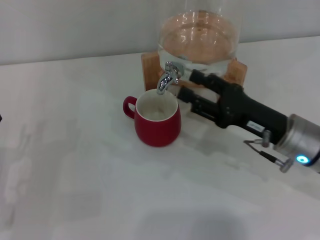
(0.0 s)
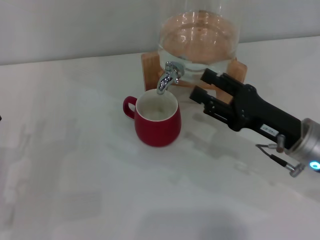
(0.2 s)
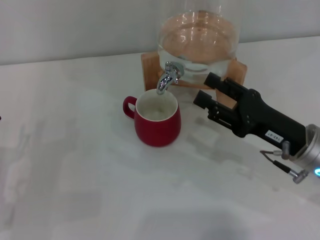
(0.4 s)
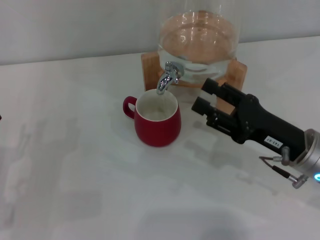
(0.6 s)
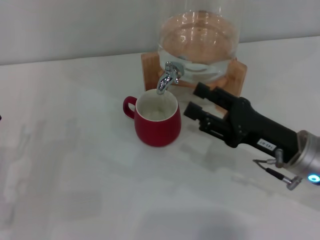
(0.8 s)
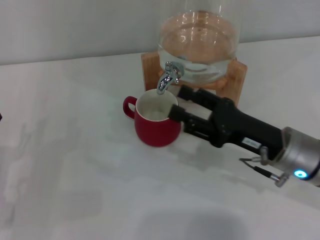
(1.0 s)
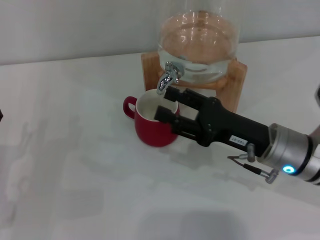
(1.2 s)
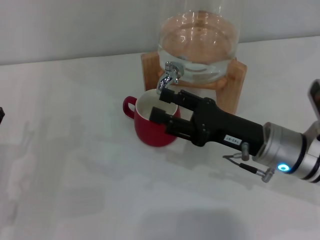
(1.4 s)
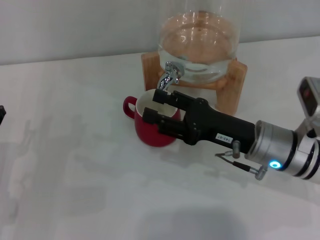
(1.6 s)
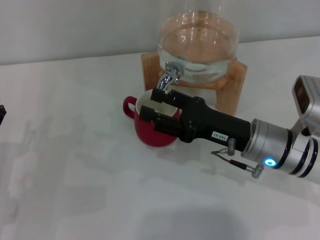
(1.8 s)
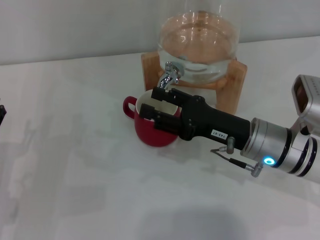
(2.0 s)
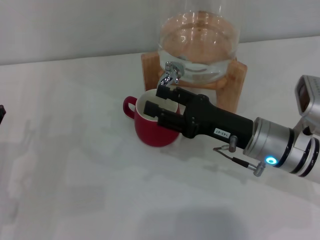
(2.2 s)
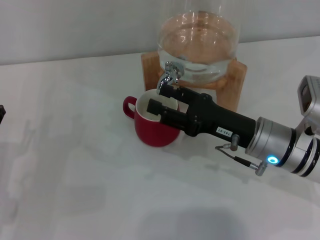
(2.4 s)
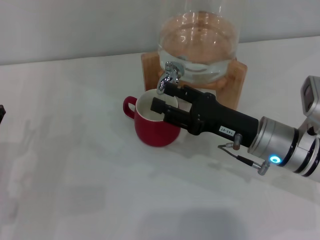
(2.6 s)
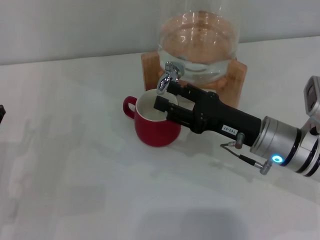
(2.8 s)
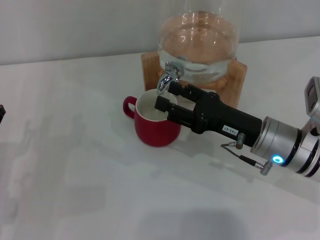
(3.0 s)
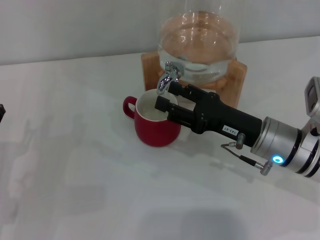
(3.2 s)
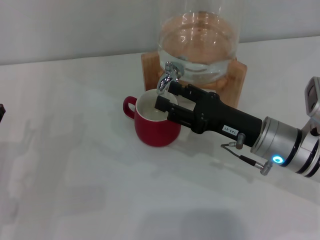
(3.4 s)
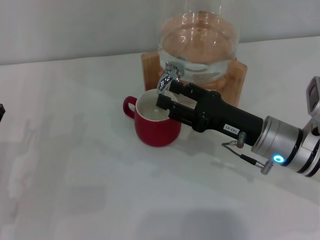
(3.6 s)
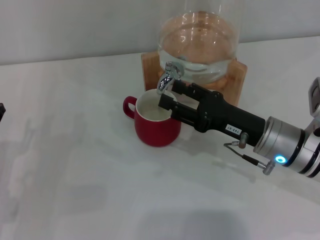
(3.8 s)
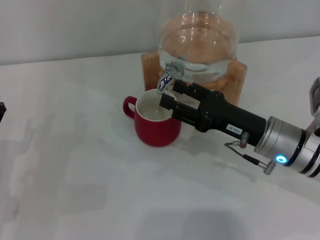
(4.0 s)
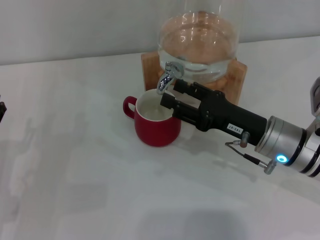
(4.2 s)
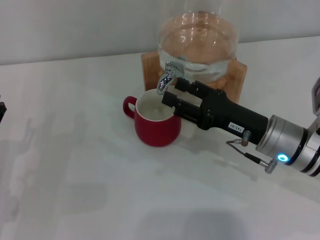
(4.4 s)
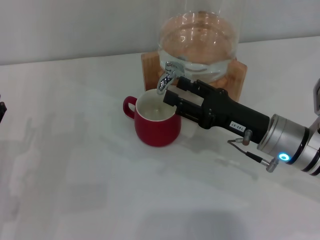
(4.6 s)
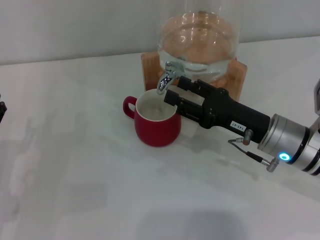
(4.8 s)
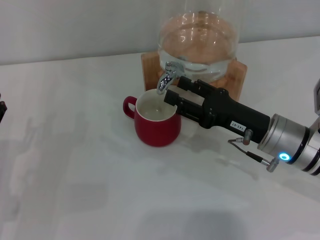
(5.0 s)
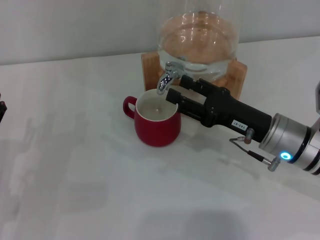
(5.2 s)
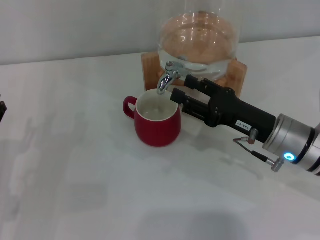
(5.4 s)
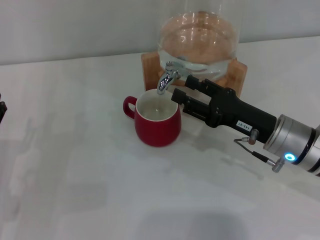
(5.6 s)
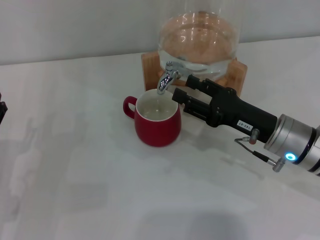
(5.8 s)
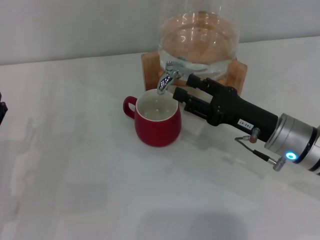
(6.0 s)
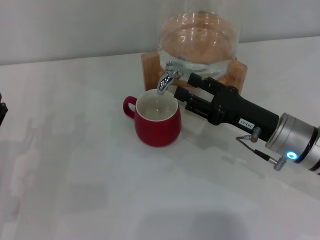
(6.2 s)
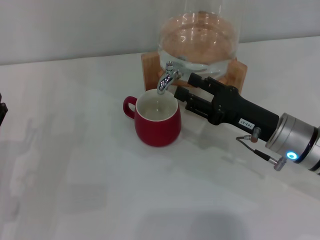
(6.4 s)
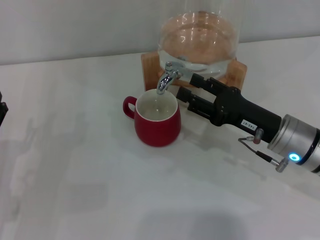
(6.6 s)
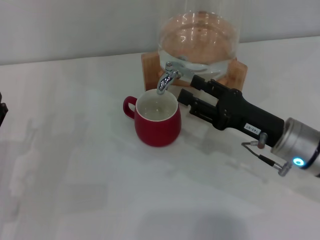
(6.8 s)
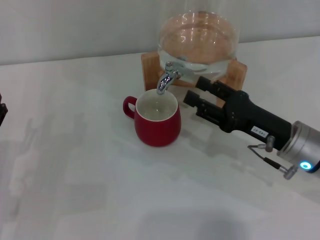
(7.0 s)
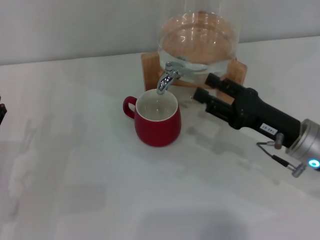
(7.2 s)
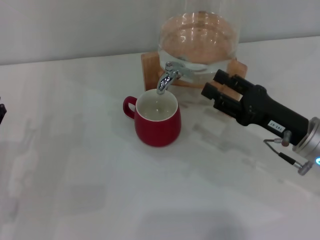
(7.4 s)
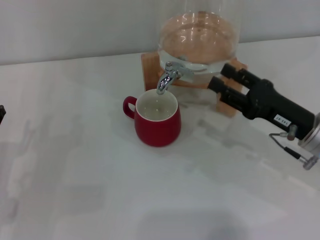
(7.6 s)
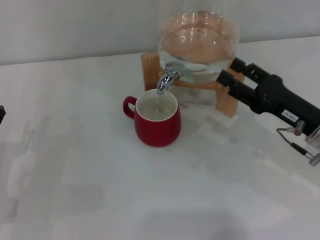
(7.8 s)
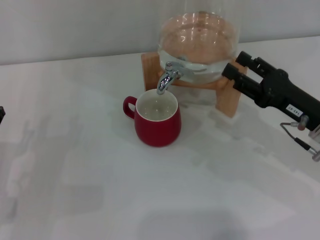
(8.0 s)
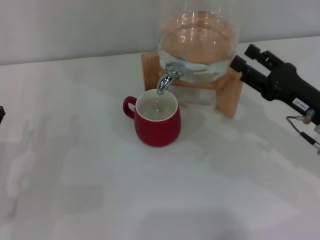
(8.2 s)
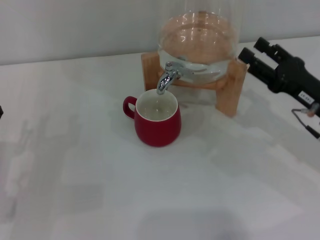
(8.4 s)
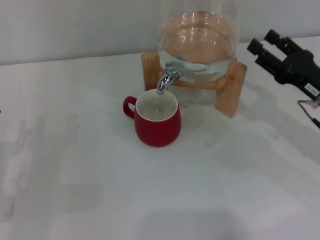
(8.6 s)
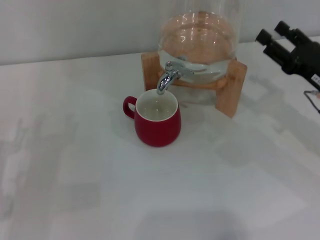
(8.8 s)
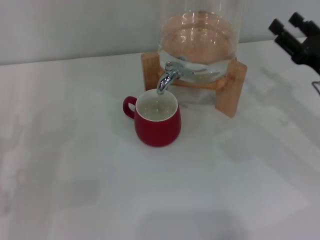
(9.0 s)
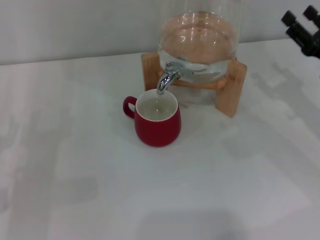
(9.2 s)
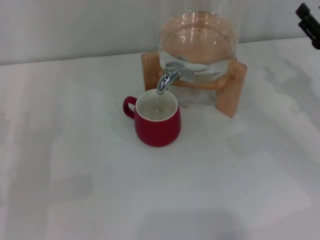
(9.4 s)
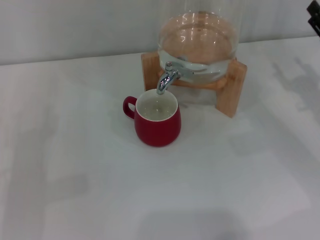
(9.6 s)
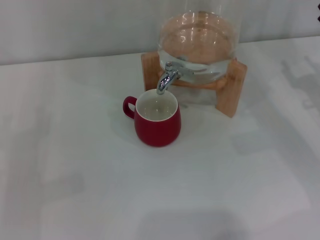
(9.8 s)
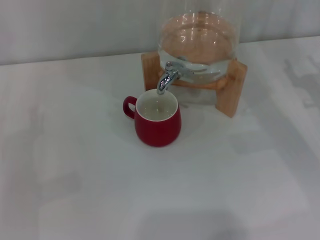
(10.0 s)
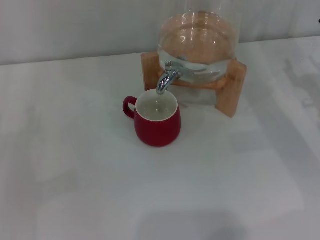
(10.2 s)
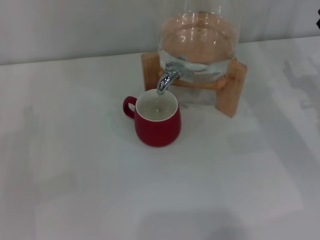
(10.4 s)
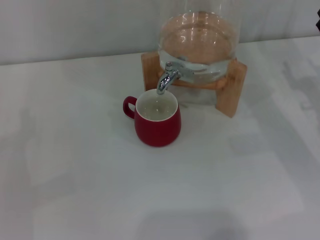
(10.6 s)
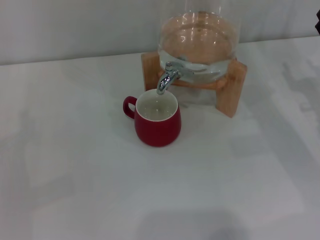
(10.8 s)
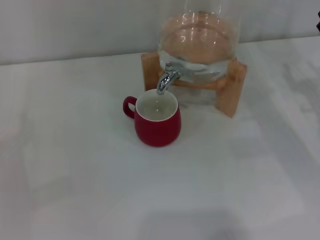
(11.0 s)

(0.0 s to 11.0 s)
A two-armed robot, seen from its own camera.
Task of the whole recording: the left gripper pick up the red cup and place it horizontally under the faucet, the right gripper turn on the faucet to fill the cup, and then turn off the faucet.
Step, 0.0 s - 6.8 s: Close the dispenser valve with the right gripper.
0.0 s - 3.2 s: The grippers make only small movements.
3.2 s - 4.8 s: Both grippers stay about where they are.
4.8 s - 6.2 s: Both grippers stay put.
6.2 s - 7.8 s: The right gripper is displaced to the right by roughly 5 cm.
7.8 s - 9.4 s: The right gripper is displaced to the right by some 5 cm.
9.4 s - 11.0 s: The grippers move only a little.

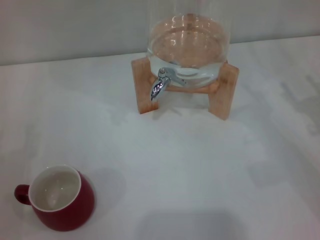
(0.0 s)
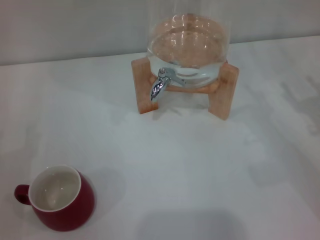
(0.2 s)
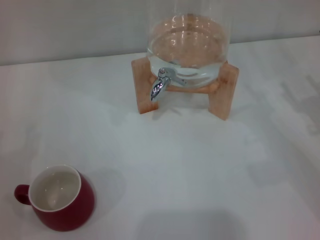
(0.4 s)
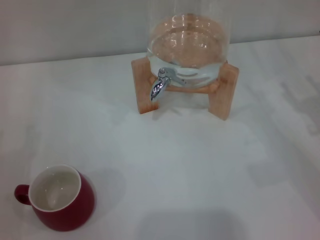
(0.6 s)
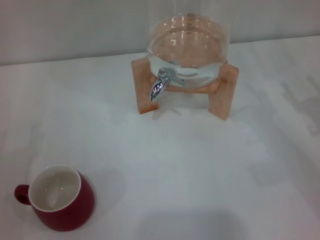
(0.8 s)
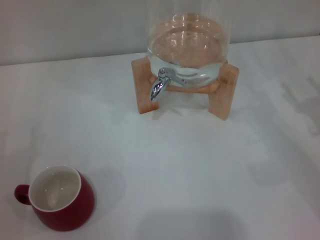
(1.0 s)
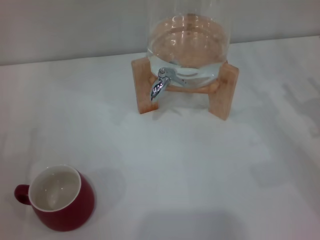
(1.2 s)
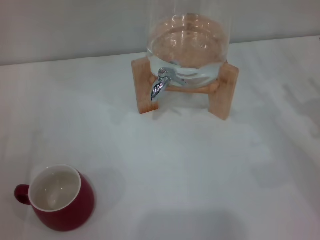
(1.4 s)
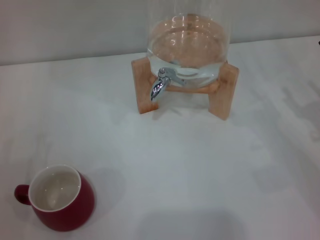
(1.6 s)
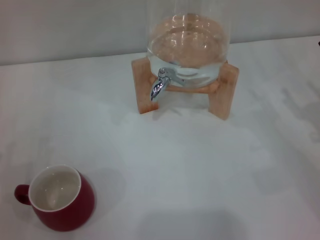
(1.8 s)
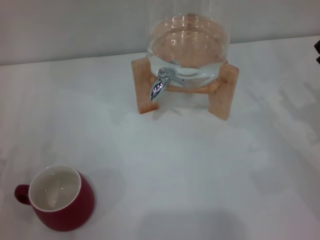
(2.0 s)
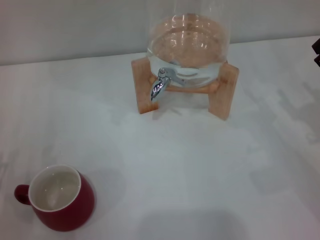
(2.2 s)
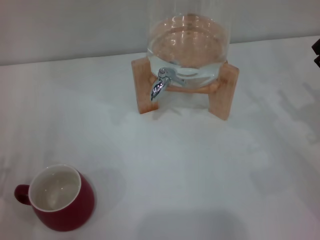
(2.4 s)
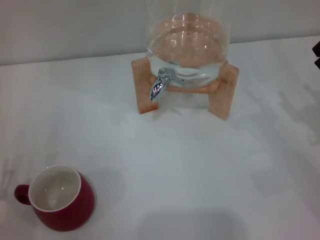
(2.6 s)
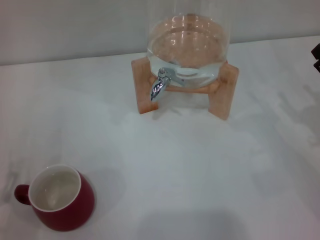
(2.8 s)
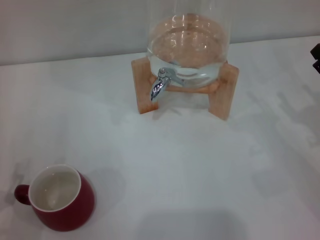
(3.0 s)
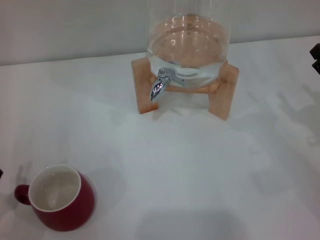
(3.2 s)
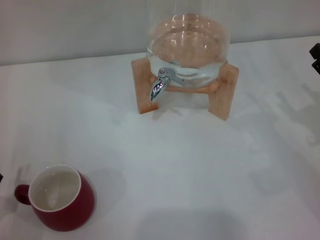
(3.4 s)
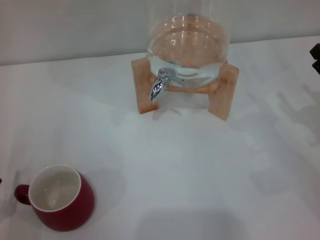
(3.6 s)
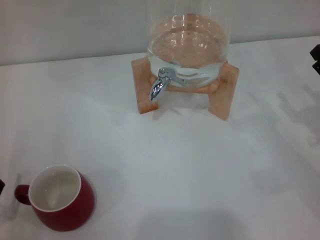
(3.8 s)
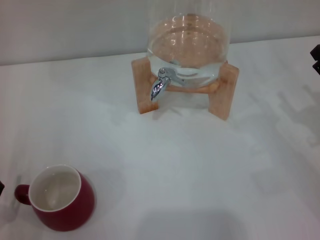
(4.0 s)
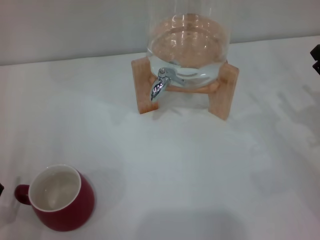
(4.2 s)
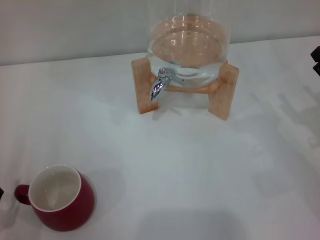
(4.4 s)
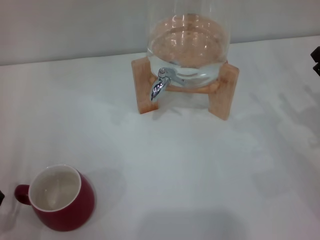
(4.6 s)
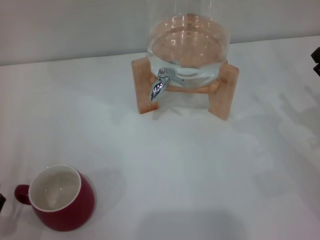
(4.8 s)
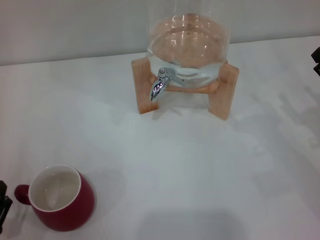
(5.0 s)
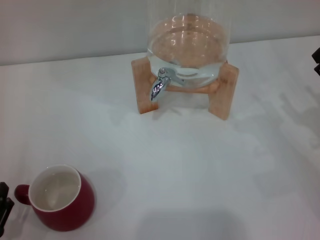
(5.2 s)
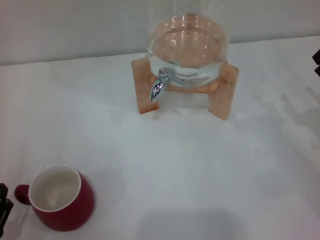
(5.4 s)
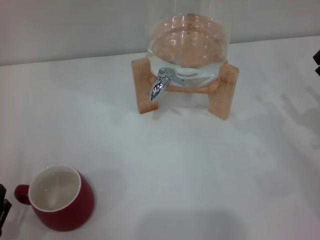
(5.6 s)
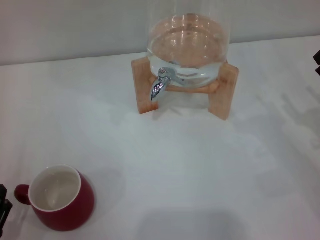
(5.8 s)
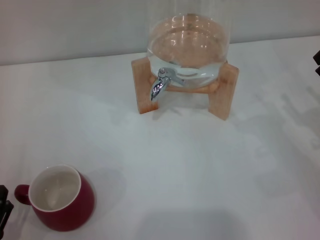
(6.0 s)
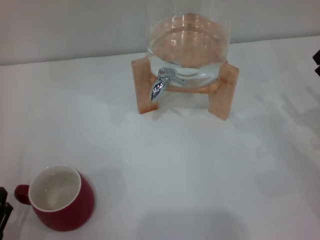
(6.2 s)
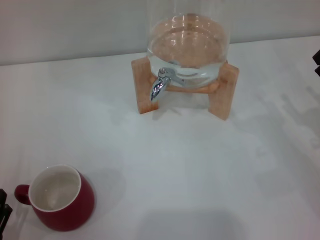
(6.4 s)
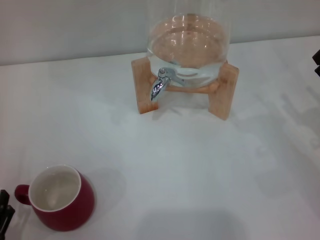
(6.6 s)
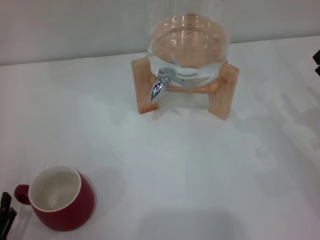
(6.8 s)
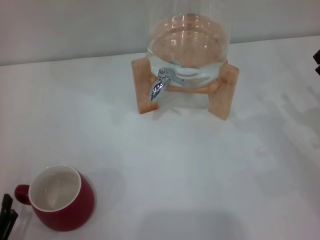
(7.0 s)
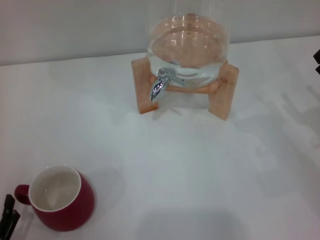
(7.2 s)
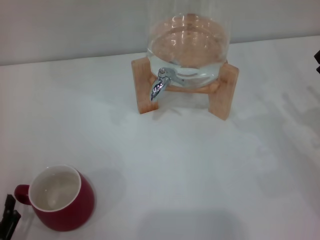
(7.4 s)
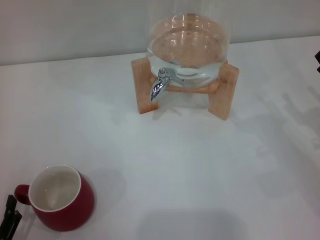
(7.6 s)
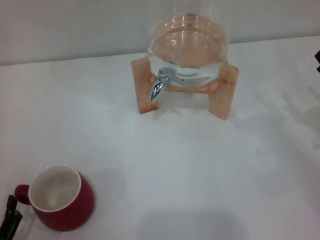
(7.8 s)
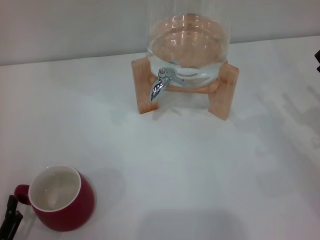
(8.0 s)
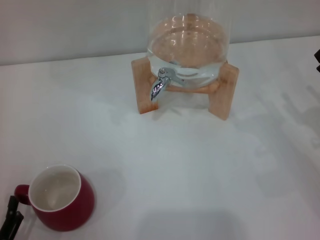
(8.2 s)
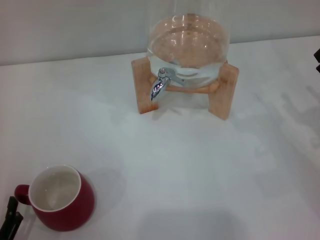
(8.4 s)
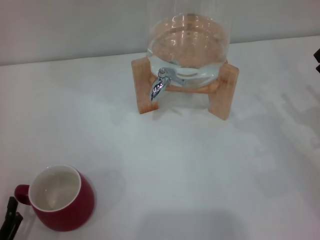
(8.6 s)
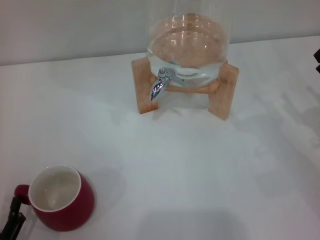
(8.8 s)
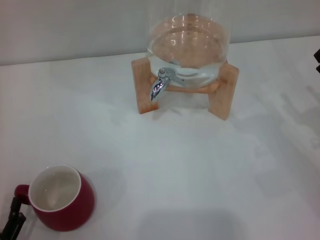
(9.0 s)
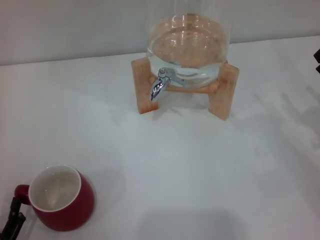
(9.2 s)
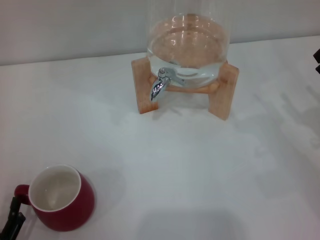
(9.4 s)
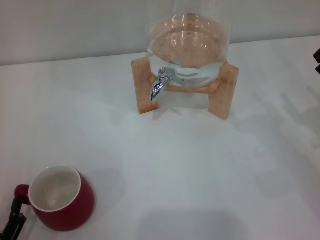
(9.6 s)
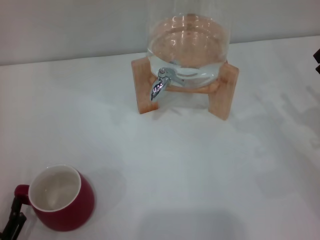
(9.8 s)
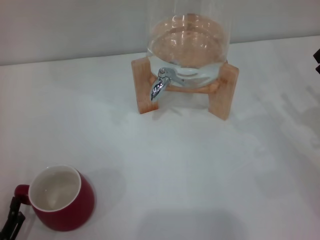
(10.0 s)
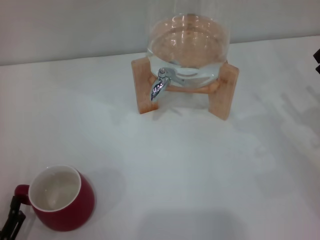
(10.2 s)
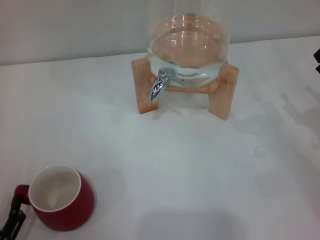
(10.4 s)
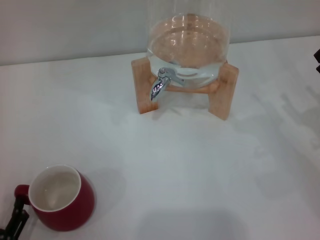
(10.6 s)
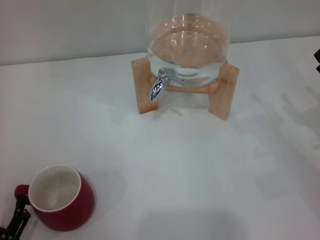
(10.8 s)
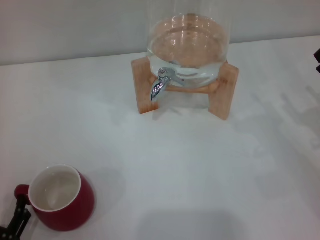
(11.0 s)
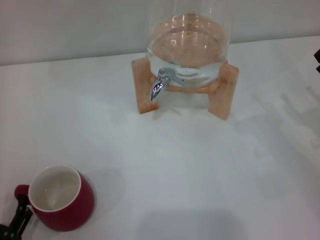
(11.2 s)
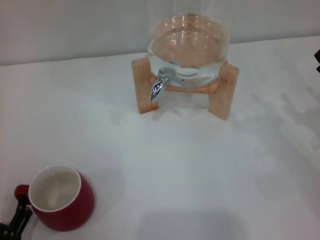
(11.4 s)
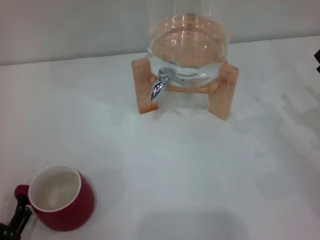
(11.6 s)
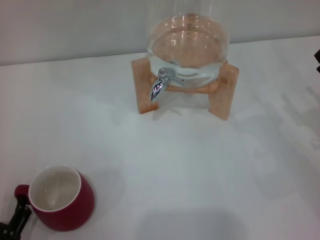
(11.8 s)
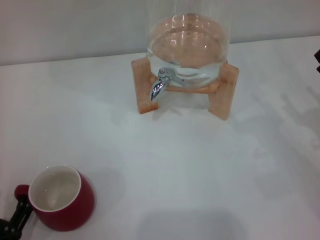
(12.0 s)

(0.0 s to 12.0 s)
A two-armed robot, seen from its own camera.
Task of the whole recording: the left gripper pick up the red cup and place it horizontally under the faucet, the right gripper turn on the faucet to fill the cup, and then turn off the faucet.
6.0 s - 7.6 s: The two grippers keep their place.
7.6 s - 10.4 s: Both grippers stay about where they are.
10.4 s - 12.0 s: Neither gripper changes place.
